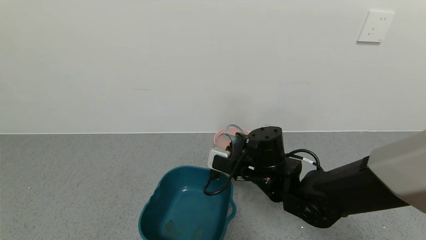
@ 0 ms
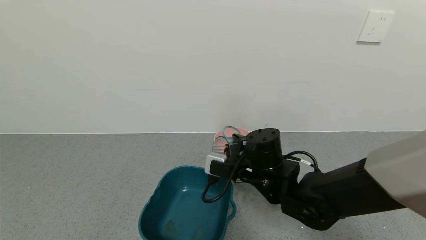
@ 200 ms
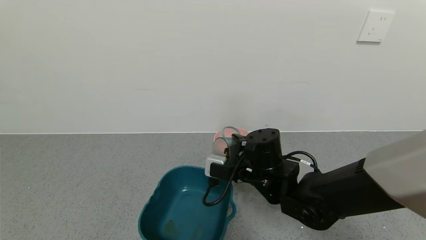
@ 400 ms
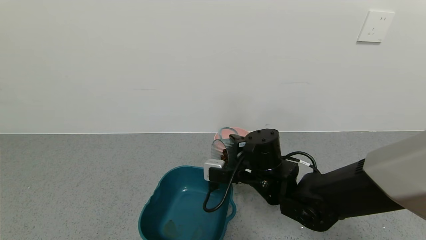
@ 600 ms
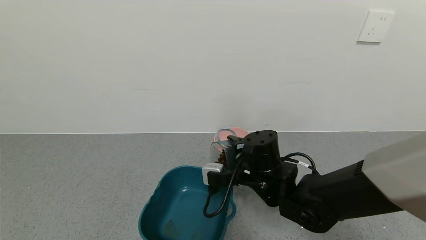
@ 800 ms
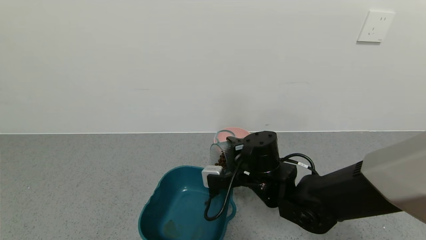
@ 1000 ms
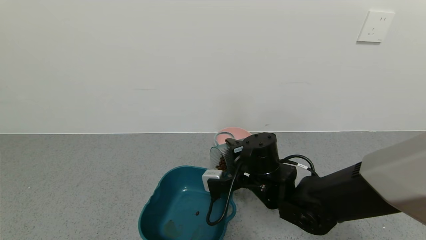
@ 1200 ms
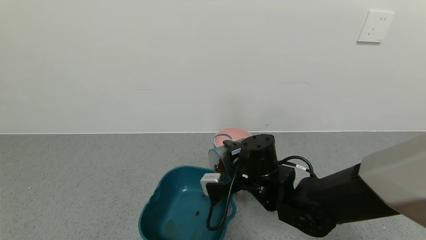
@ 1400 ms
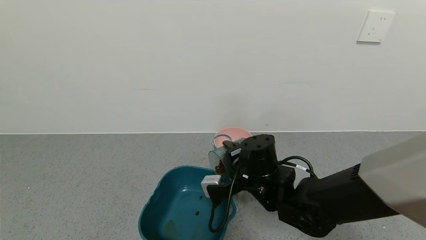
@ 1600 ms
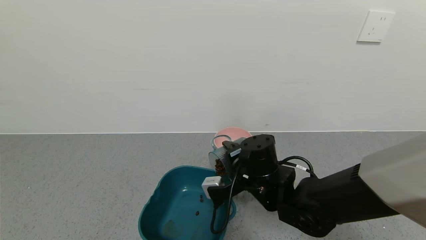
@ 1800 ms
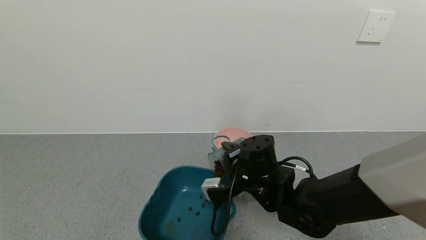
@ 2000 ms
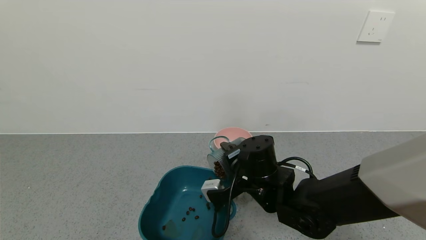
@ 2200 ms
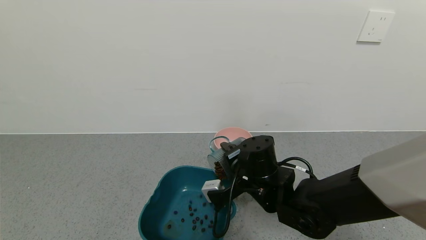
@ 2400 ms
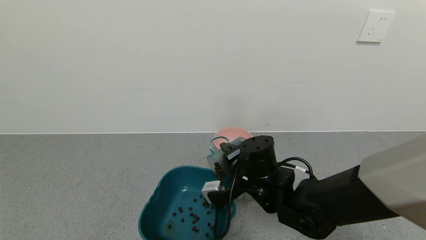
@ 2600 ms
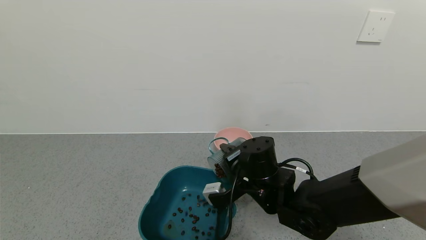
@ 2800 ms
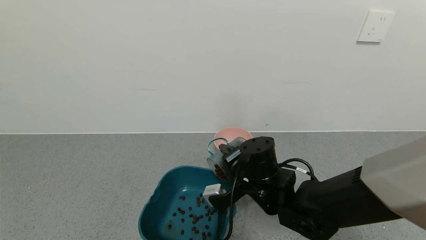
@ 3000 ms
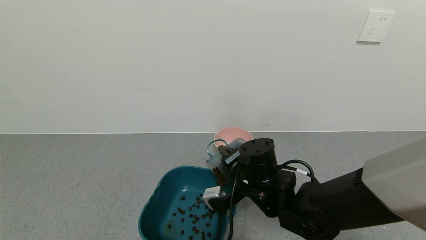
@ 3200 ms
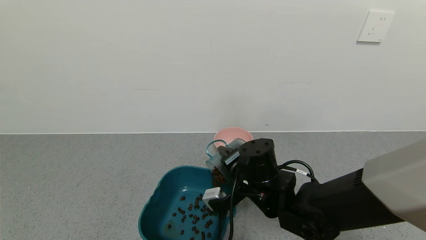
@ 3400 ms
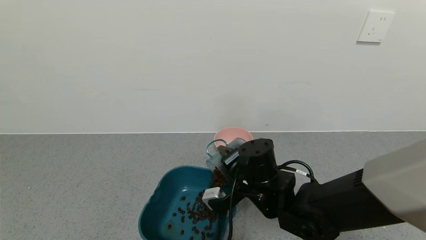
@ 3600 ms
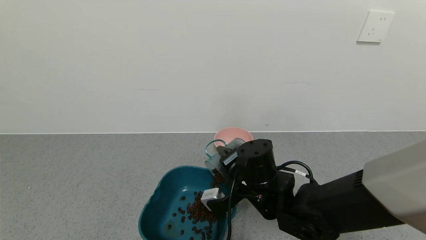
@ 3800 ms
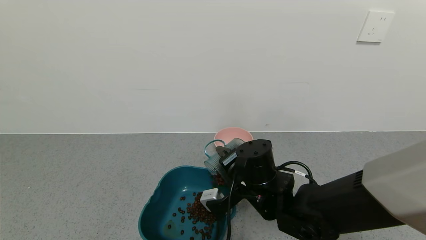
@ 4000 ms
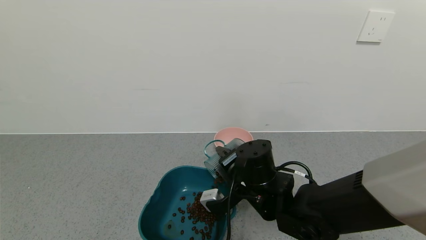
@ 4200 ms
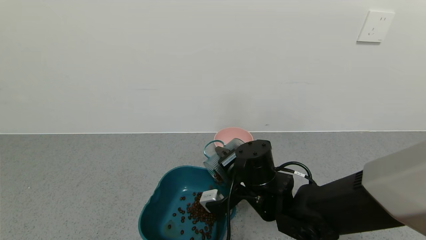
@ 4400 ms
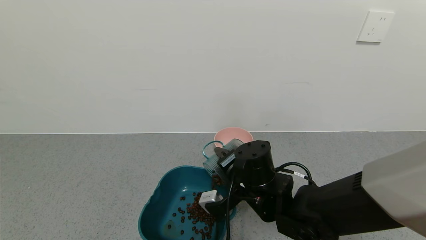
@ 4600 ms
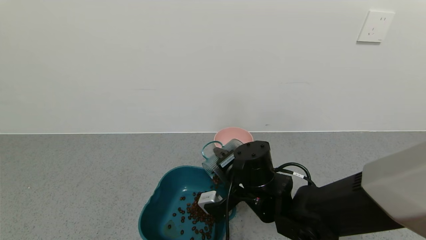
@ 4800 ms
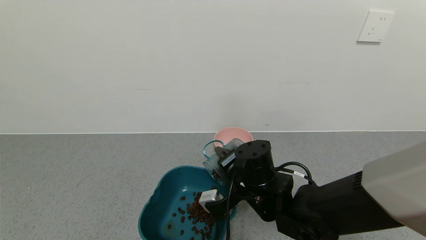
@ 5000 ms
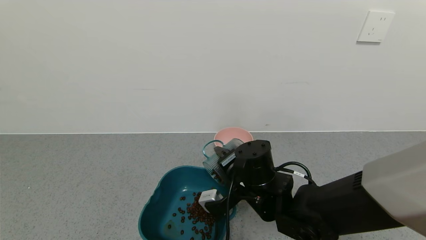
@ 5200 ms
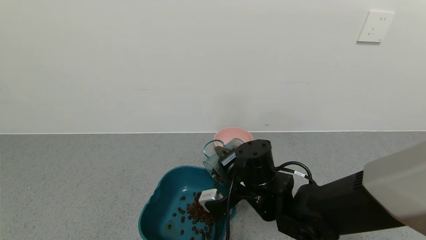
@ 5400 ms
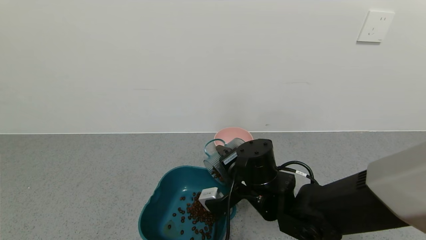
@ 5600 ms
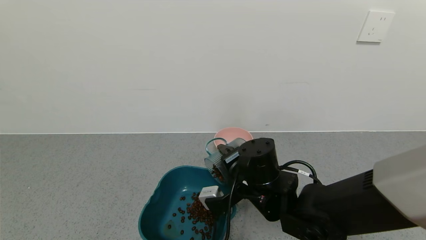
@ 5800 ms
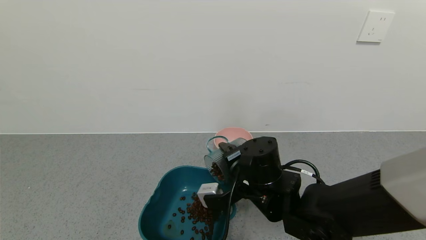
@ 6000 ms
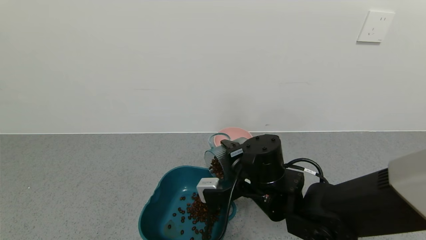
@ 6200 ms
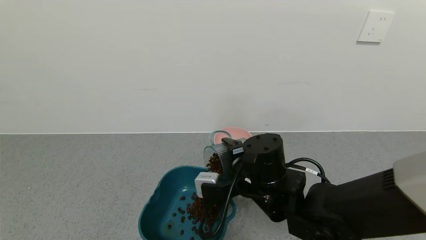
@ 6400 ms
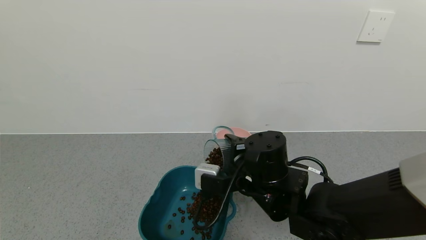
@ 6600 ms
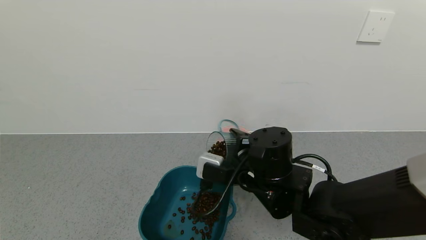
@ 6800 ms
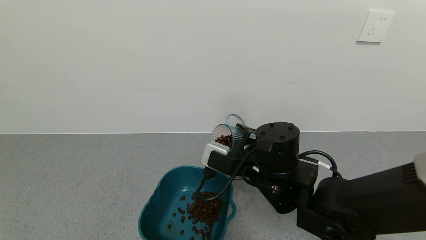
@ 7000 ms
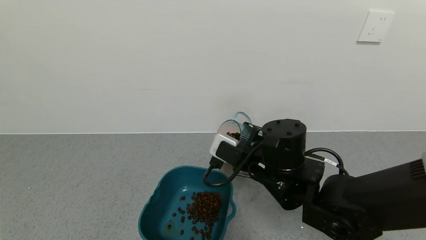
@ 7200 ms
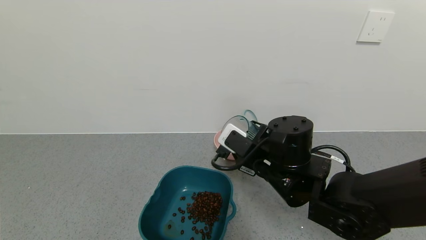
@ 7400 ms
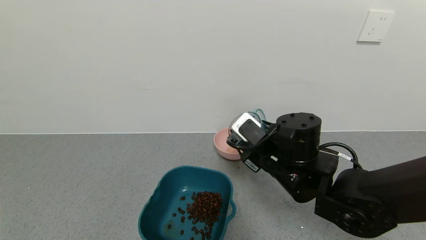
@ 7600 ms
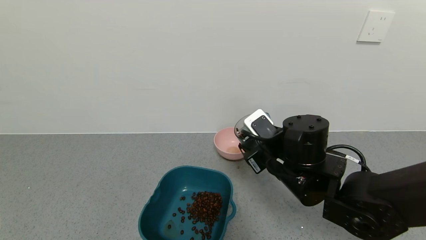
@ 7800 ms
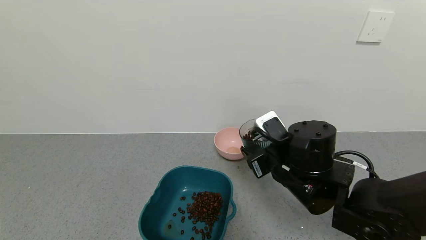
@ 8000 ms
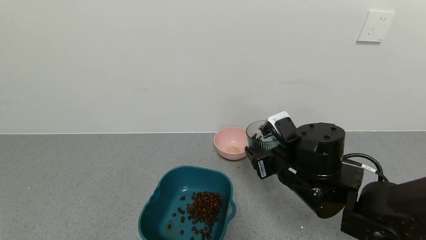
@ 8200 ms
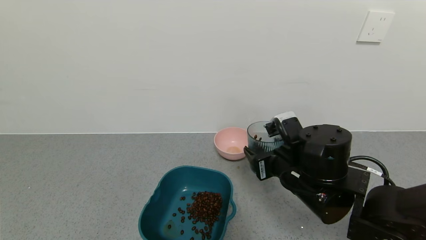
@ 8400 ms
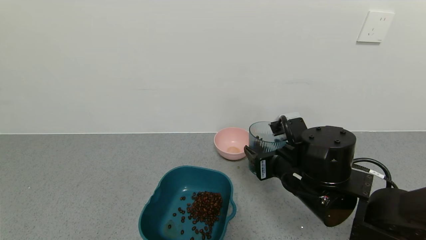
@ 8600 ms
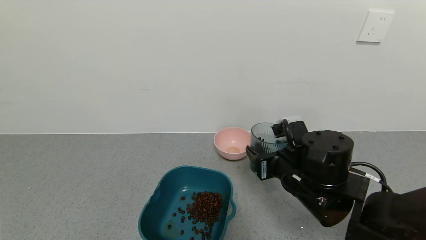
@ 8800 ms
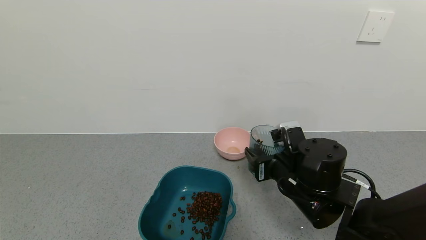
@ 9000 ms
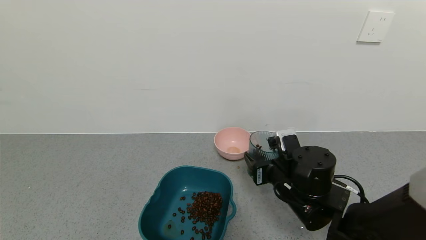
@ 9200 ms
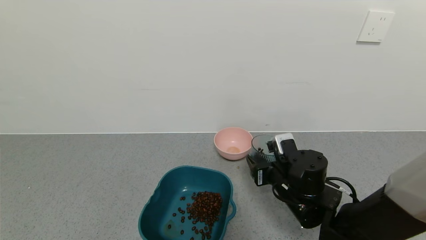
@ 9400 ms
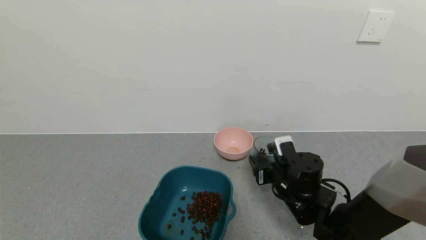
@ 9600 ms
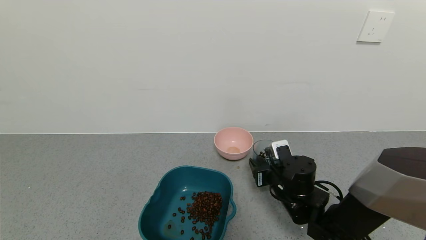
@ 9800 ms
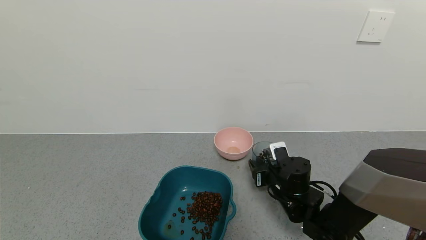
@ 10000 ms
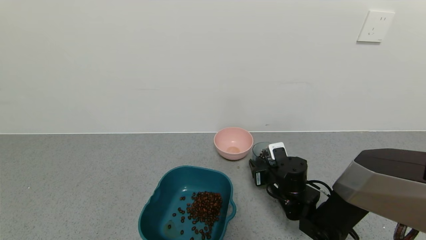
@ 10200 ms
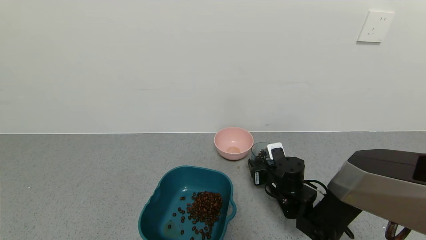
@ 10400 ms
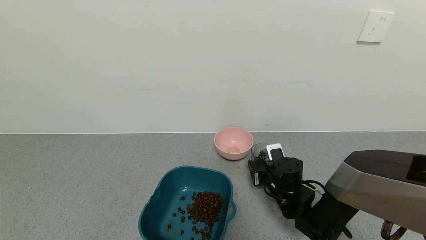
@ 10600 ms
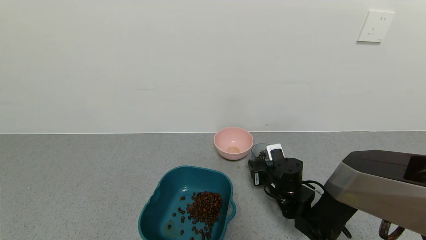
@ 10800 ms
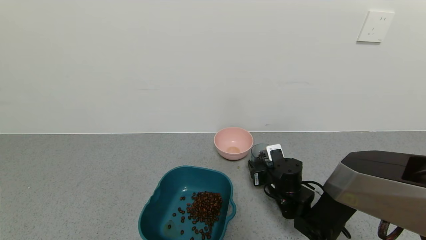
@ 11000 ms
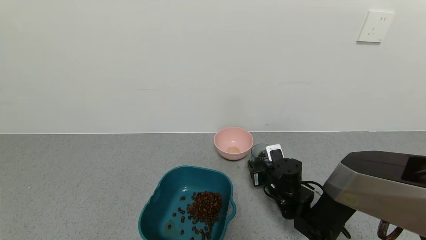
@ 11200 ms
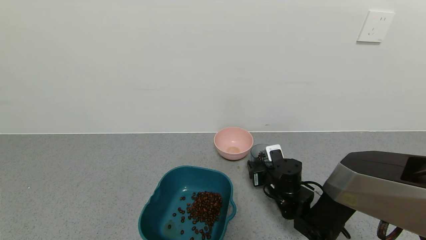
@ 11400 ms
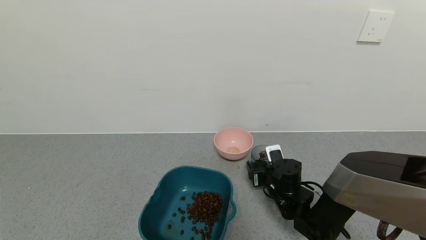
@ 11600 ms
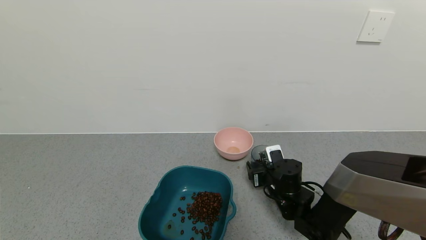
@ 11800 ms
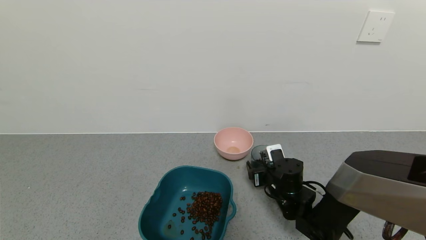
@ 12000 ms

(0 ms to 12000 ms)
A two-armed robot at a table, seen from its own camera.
Task of the whole recording: use a gripper to pick up the cup and pour the solid into a bowl or tray.
Step, 0 ms - 7600 ms: Pour the coffee beans into the green bowl with the right gripper.
1600 ms - 3000 ms: The grippers move only a little.
3000 ms - 4400 ms: Both grippers stay put.
4400 ms - 6000 ms: The grippers make only small movements.
6000 ms - 7600 ms: The right gripper shifts by approximately 5 cm.
9000 ms - 10400 ms: The right gripper heads downward and forward, covering approximately 10 cm.
10400 ms - 12000 ms: The right gripper opens its fingers.

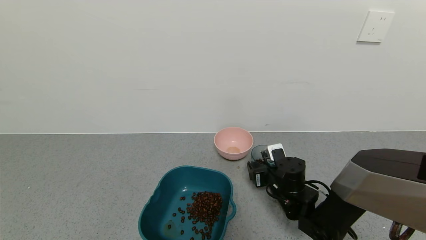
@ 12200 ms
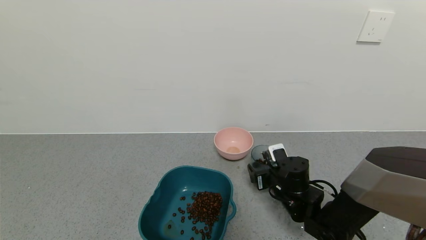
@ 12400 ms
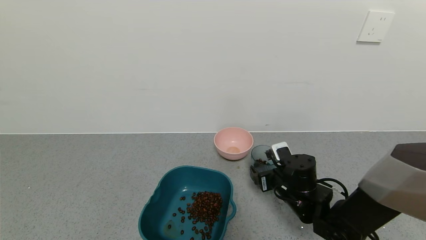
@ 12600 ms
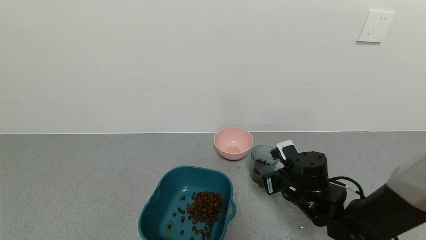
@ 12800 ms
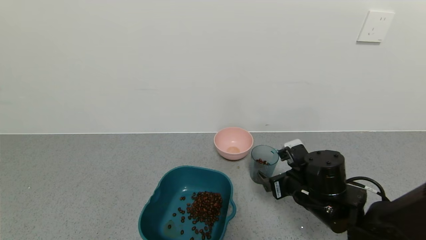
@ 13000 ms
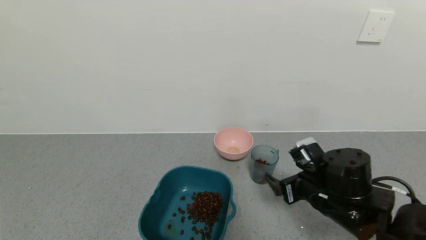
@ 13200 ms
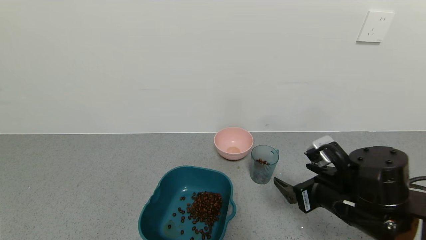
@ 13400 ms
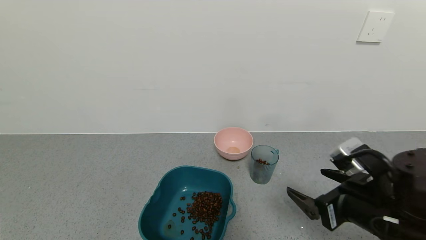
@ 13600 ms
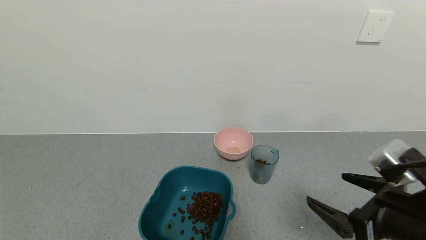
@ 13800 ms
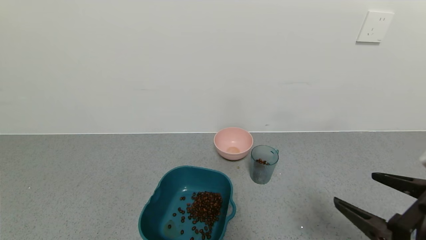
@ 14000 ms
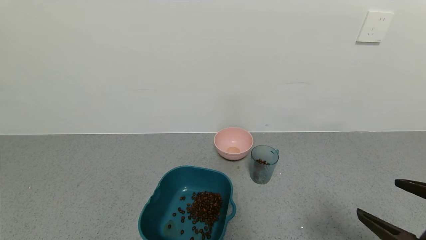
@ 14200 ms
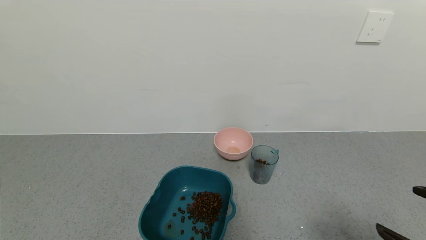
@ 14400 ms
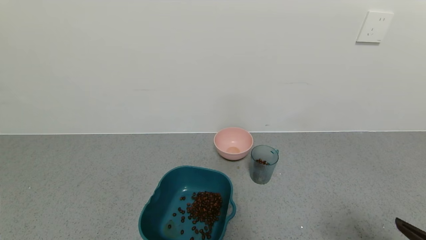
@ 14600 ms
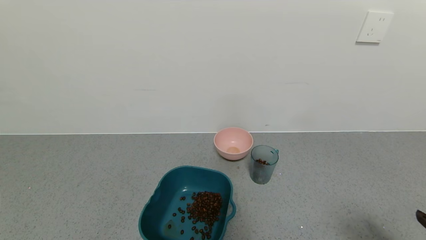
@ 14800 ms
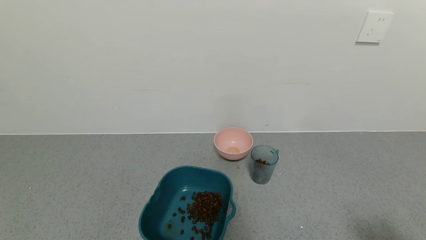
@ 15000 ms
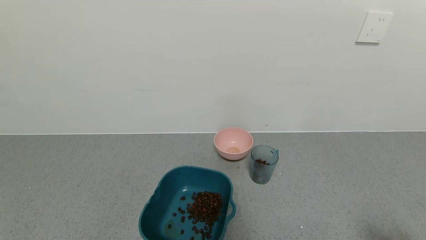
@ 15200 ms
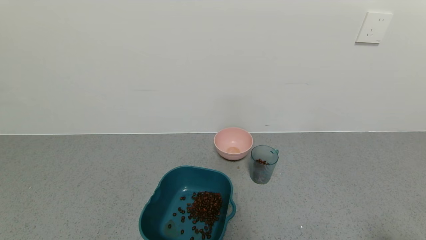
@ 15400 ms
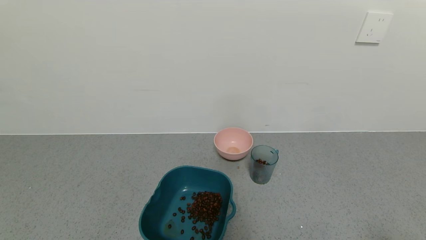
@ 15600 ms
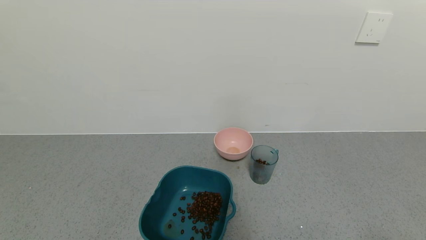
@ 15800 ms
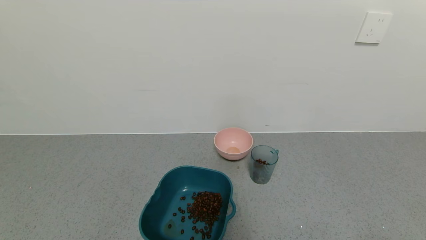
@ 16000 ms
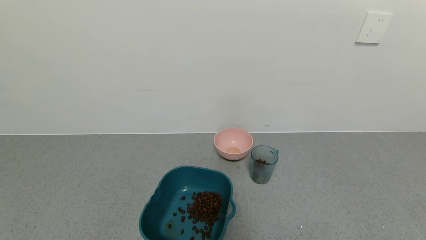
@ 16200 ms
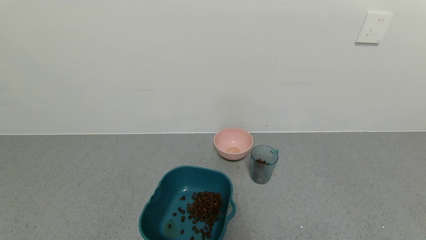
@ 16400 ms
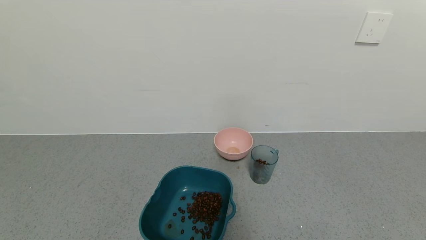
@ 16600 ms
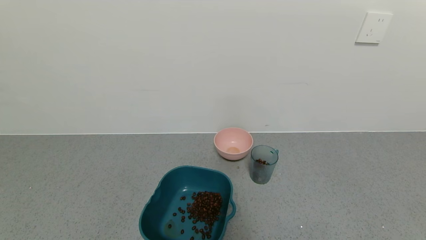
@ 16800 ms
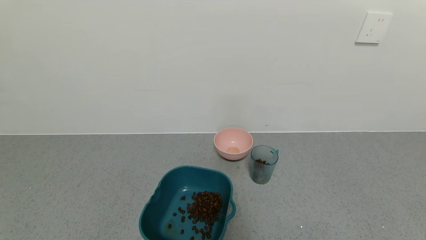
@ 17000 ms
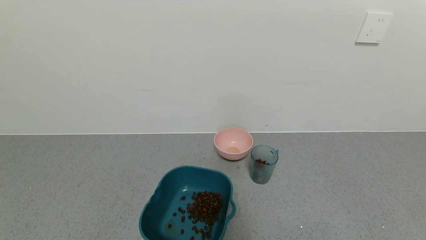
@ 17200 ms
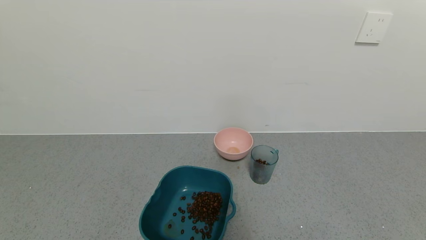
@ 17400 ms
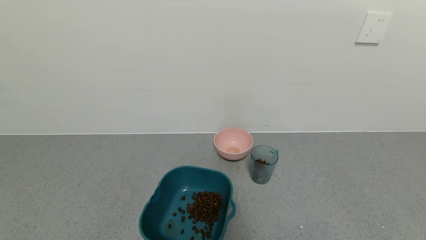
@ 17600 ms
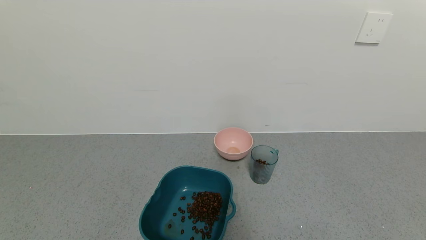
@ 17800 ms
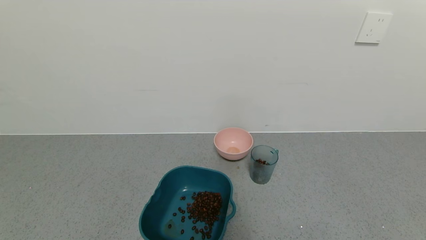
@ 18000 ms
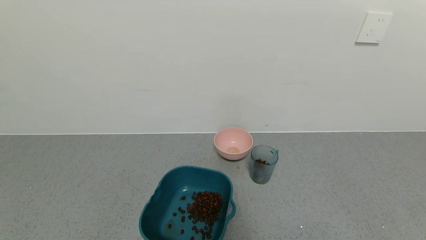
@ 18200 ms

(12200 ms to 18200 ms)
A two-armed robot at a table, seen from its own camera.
Task of the whole recording: use a gripper to pick up the cup and pour the solid into a bowl or tray.
12200 ms - 13800 ms: The right gripper is displaced backward, upward and to the right by roughly 25 cm.
13800 ms - 15200 ms: The right gripper moves to the right and backward, approximately 15 cm.
